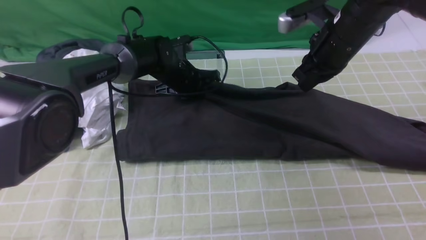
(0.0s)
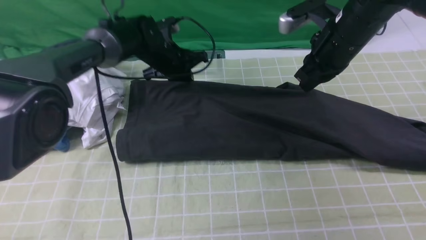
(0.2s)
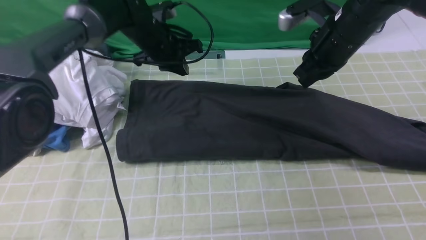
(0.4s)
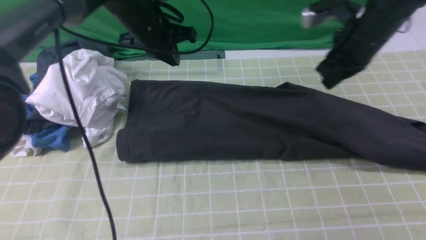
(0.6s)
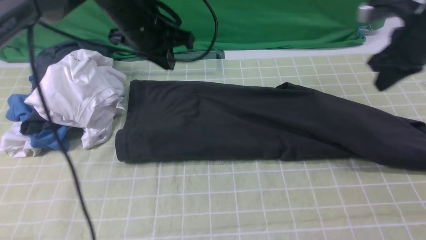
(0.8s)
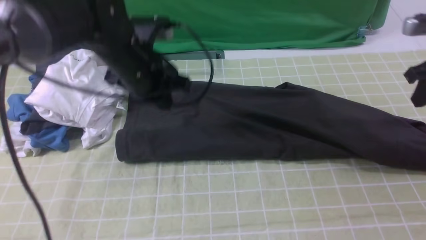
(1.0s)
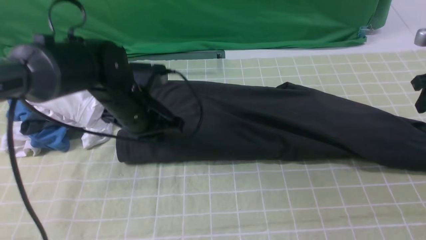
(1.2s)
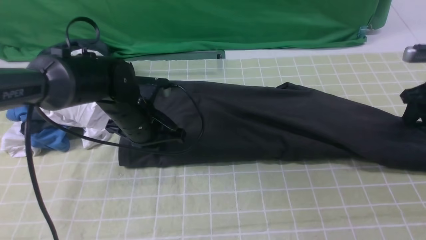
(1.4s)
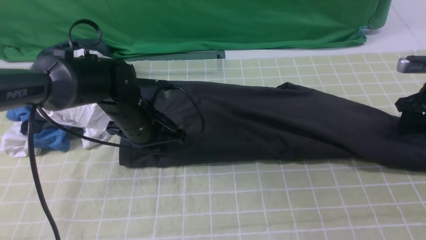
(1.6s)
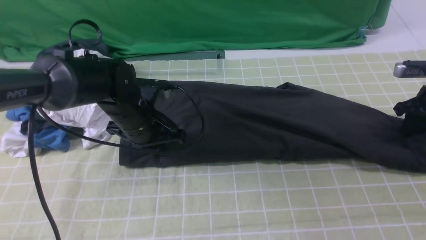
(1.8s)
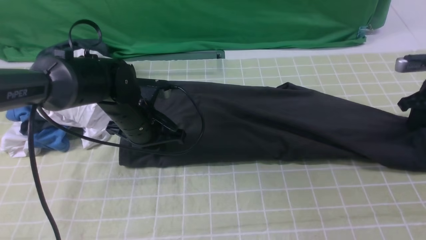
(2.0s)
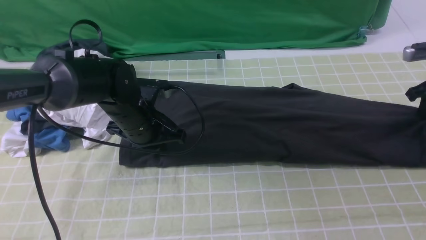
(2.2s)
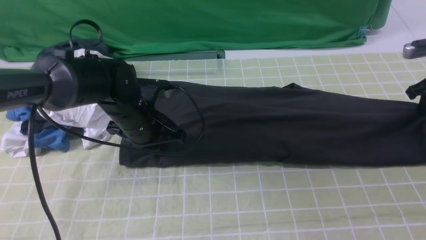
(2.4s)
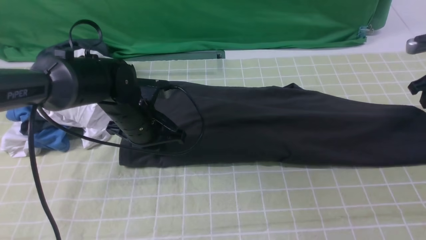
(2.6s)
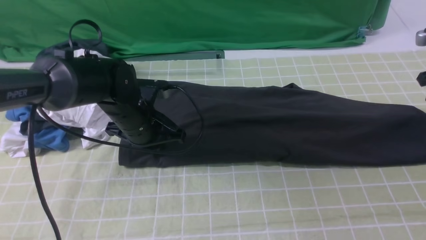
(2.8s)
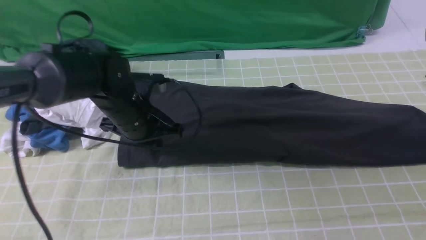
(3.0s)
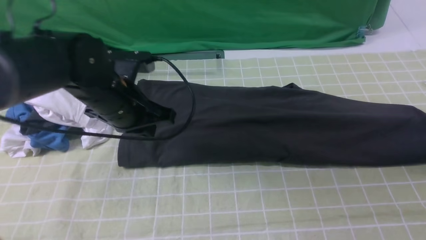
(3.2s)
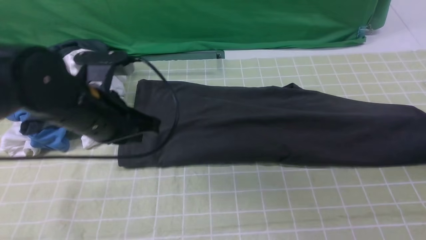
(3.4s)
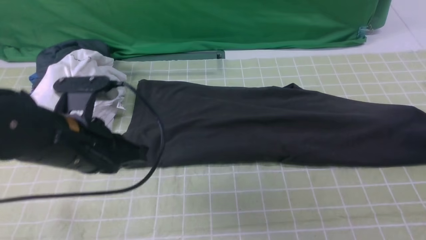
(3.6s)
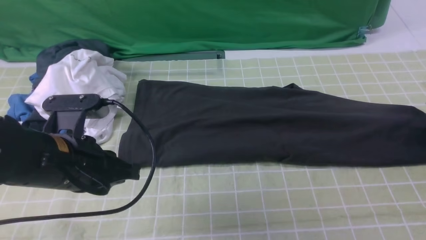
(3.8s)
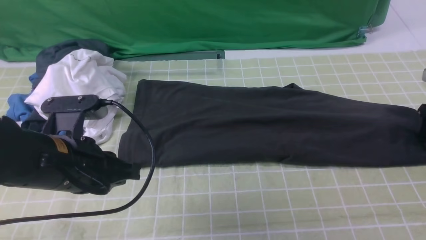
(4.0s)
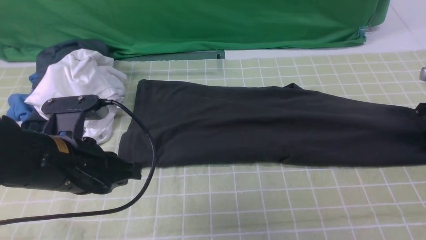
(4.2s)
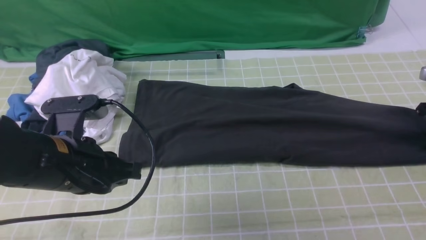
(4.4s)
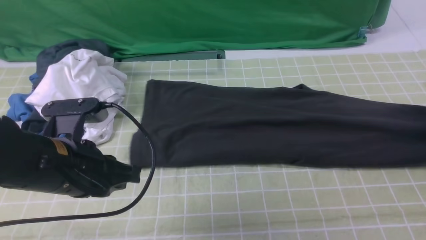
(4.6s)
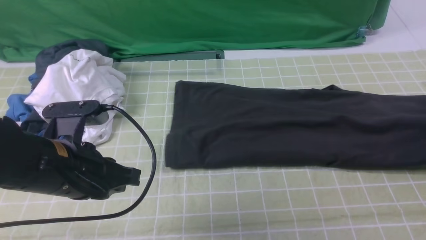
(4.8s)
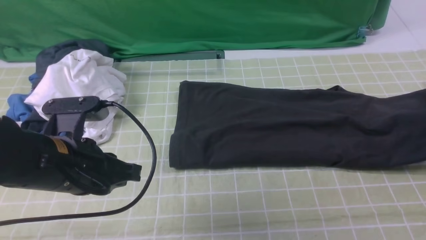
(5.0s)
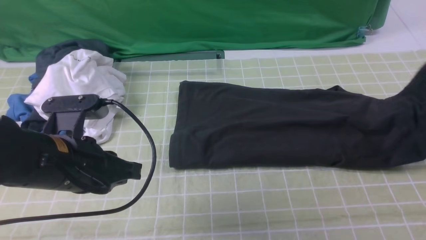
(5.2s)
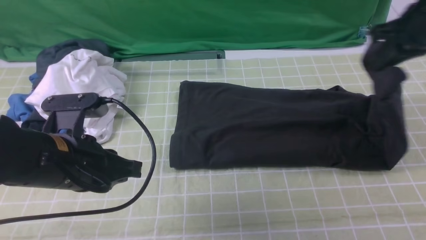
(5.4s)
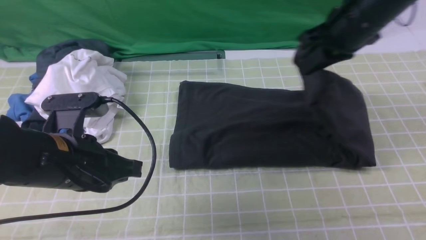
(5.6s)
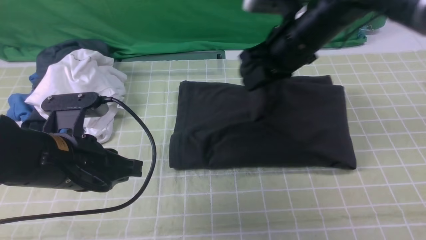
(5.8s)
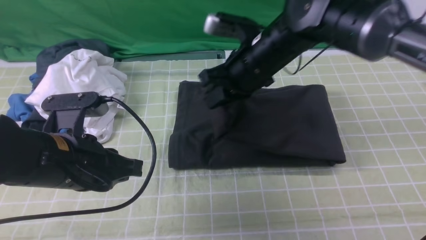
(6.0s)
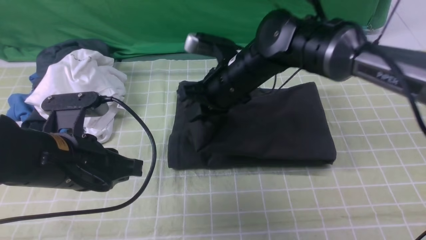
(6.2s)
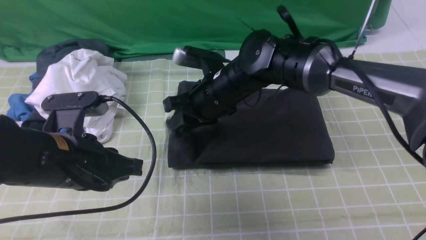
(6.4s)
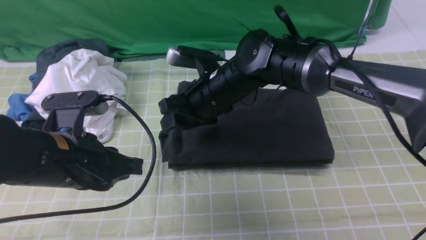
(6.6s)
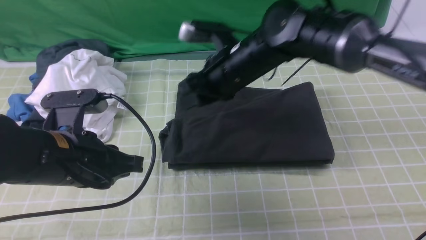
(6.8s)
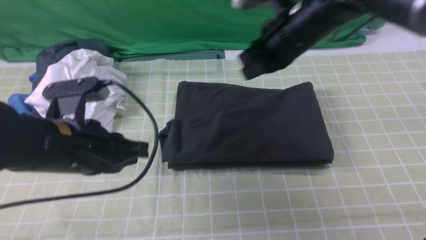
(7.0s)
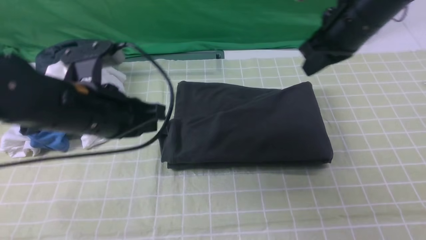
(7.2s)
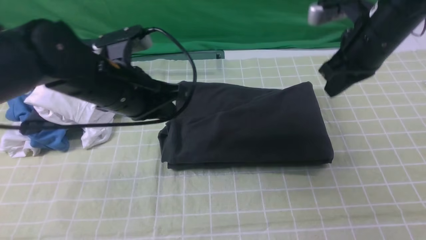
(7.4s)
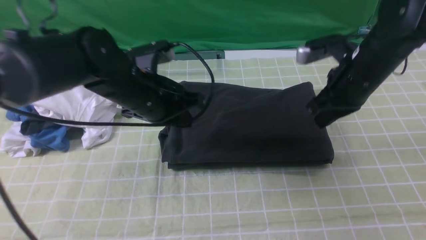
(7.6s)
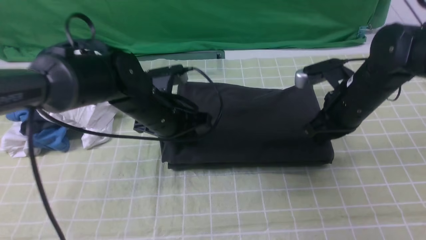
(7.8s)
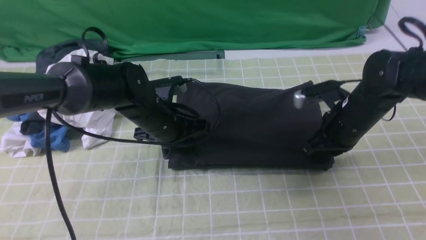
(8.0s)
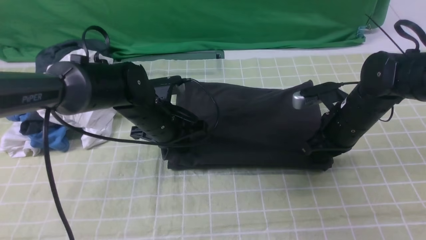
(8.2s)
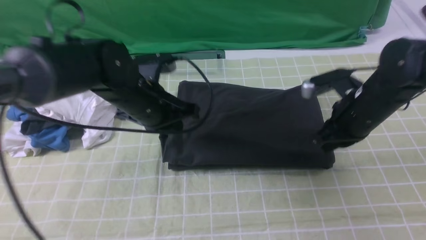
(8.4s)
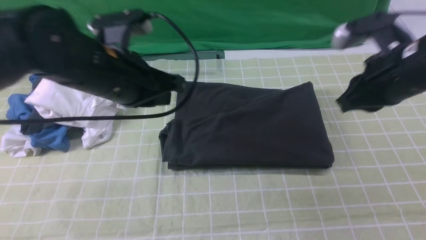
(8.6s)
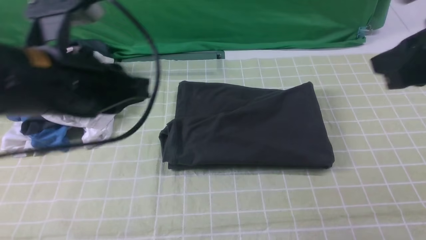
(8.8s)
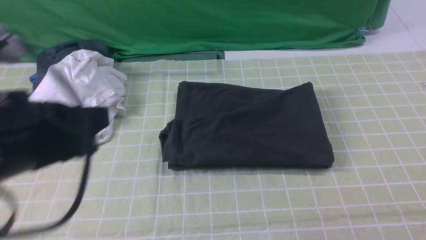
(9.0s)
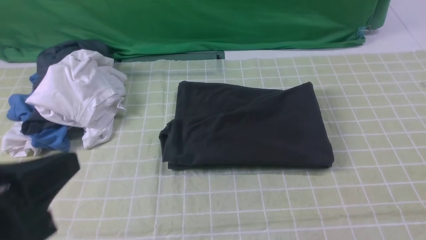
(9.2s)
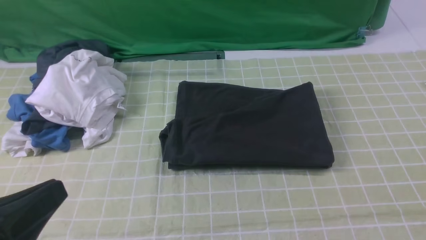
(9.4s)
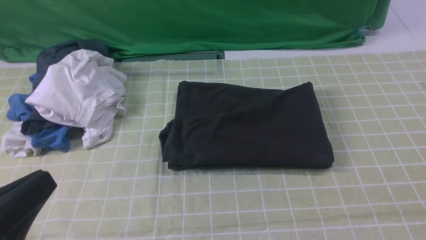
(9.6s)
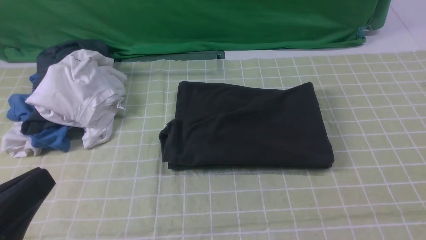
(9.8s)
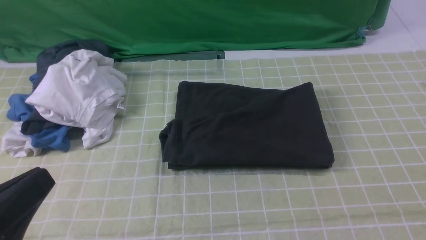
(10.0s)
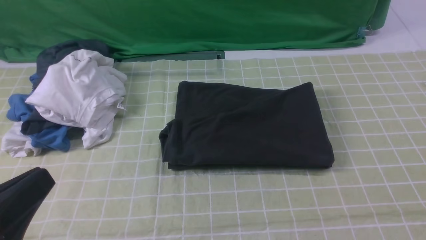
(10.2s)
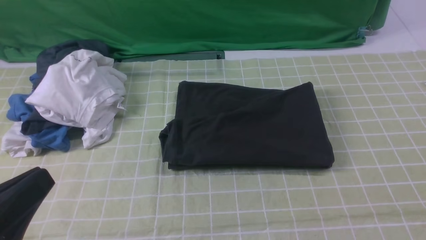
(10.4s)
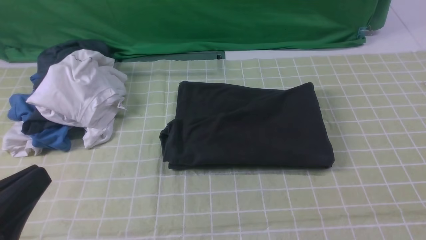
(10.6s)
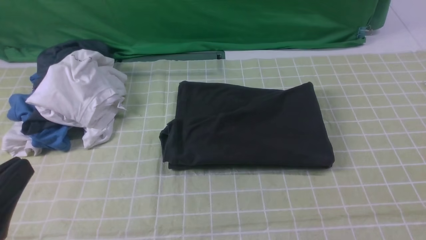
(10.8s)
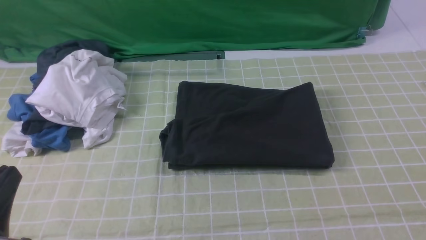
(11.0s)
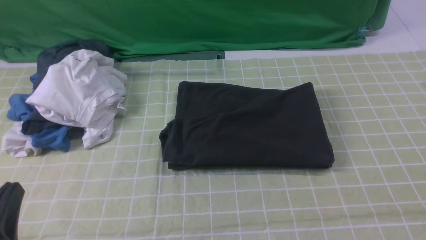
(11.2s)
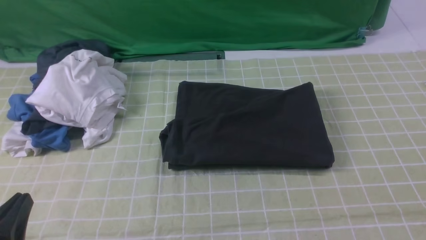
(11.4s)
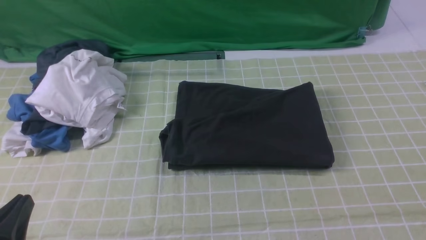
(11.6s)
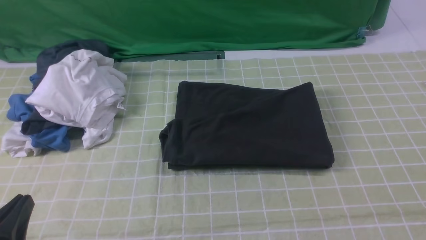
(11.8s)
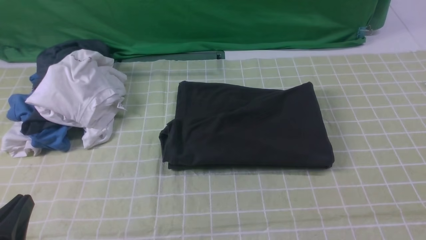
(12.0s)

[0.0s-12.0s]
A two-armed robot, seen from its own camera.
Step, 0.0s to 4.4s: use the right arm to clamp the right edge of the fabric.
Step, 4.6s to 6.6s: use the right arm to drag the right edge of the fabric to the left and folds it over the left edge.
0.0s to 1.6s: The right gripper shifts about 25 cm to the right and downward, and opens up. Meanwhile the left gripper goes approximately 15 cm backward.
1.6s to 3.0s: The right gripper shifts roughly 5 cm upward.
3.0s to 4.4s: The right gripper moves downward, about 10 cm, and opens and closes again. Meanwhile the left gripper shifts roughly 15 cm backward.
4.4s to 6.0s: The right gripper moves to the left, approximately 40 cm.
6.0s to 7.6s: The left gripper travels forward and to the right by approximately 15 cm. Meanwhile the right gripper is displaced to the right by roughly 15 cm, and opens and closes again.
7.6s to 9.0s: The grippers both shift backward and upward by roughly 25 cm.
9.0s to 10.4s: The left gripper is displaced backward and downward by about 10 cm.
10.4s to 12.0s: The left gripper shifts some 10 cm downward.

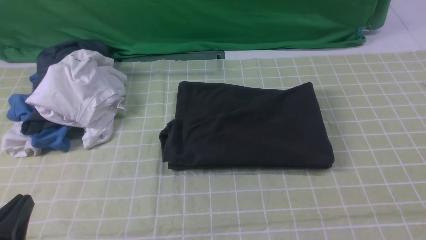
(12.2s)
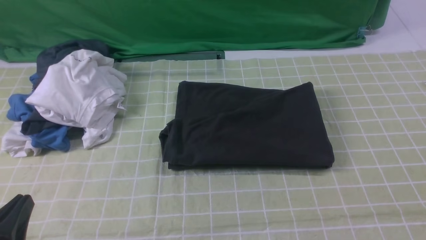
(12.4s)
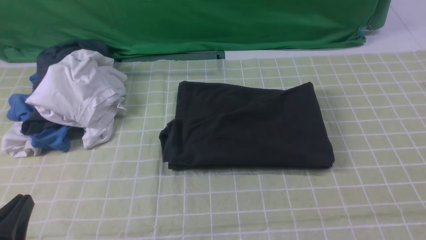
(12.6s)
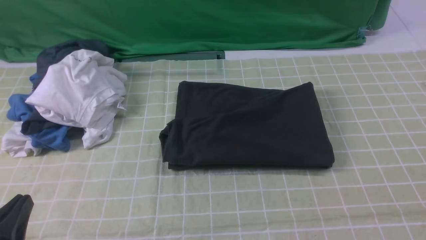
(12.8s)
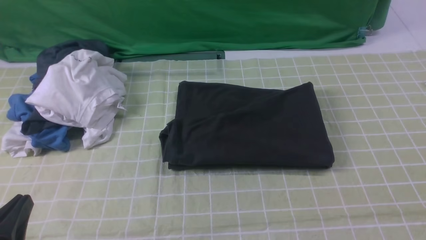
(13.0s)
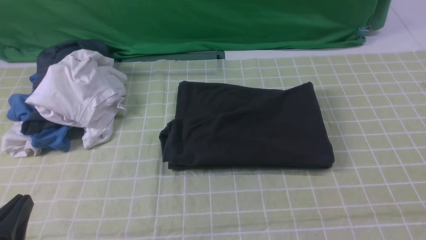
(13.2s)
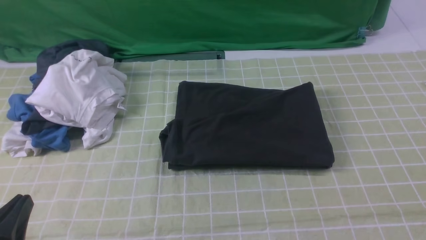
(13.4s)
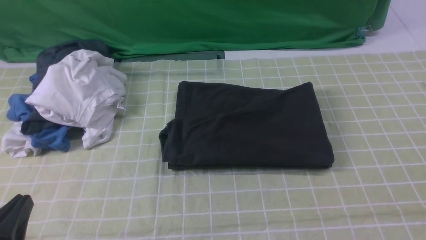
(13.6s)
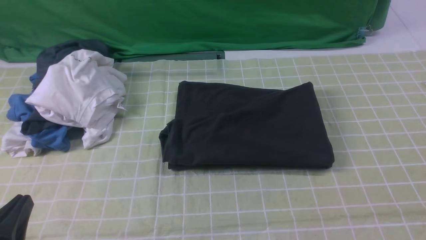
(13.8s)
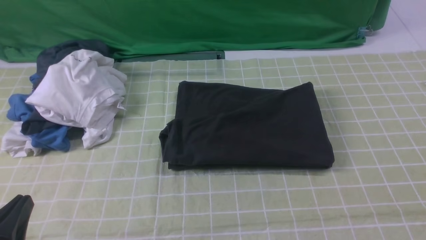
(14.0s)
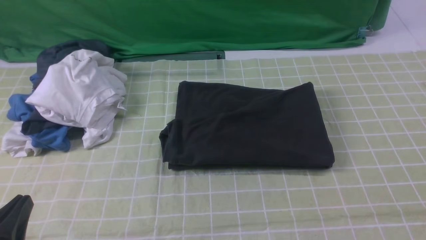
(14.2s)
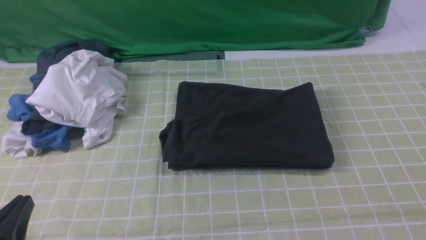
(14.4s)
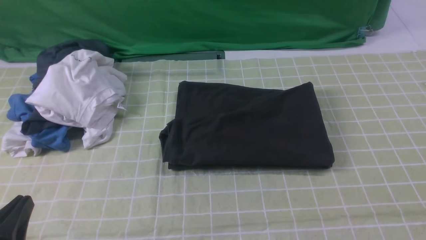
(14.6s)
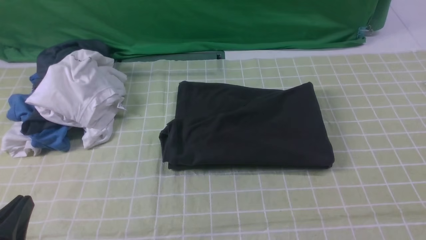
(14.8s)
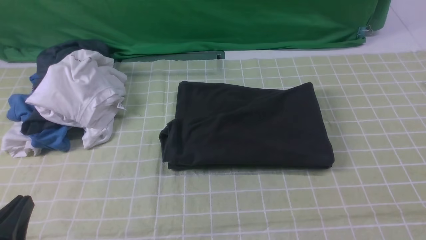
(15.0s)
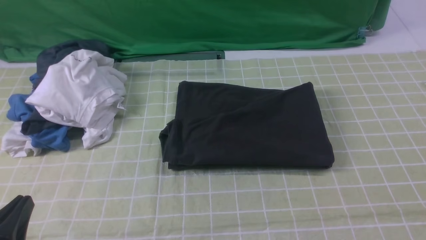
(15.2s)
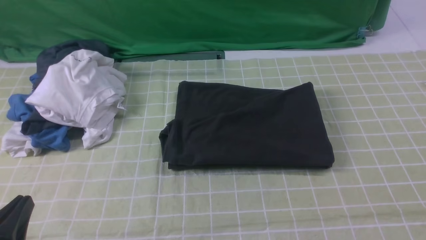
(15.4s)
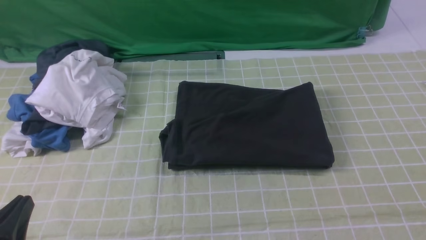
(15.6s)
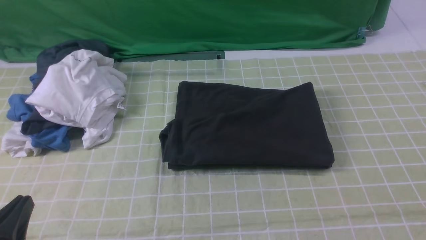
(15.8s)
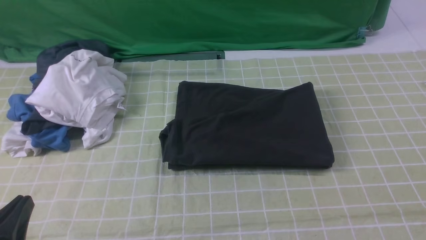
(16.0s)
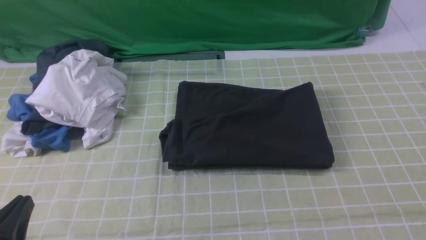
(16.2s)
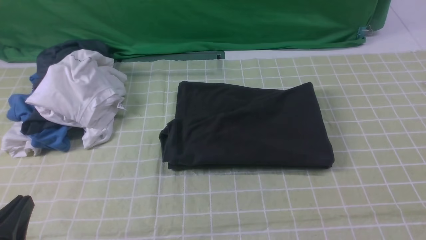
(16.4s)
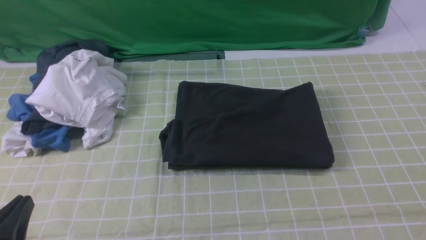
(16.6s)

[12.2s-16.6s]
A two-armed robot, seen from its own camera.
15.2s to 16.6s: Neither gripper changes place.
